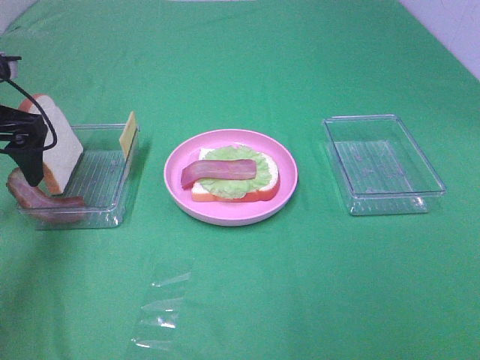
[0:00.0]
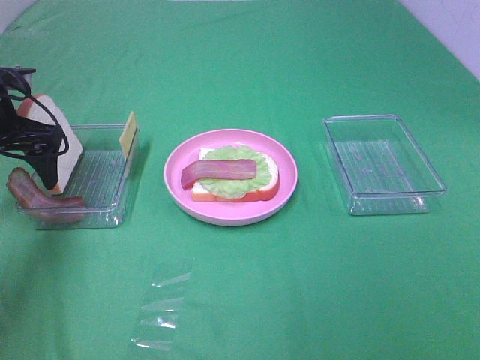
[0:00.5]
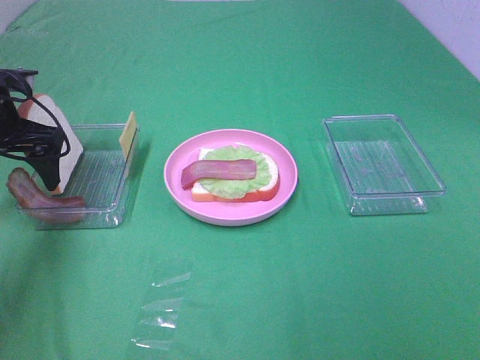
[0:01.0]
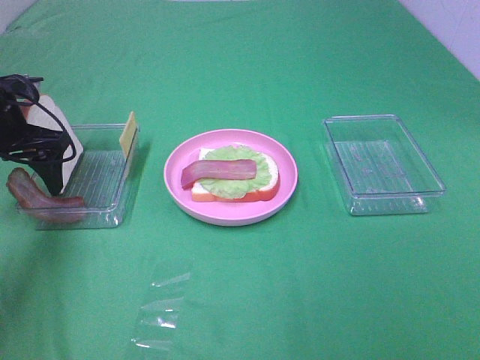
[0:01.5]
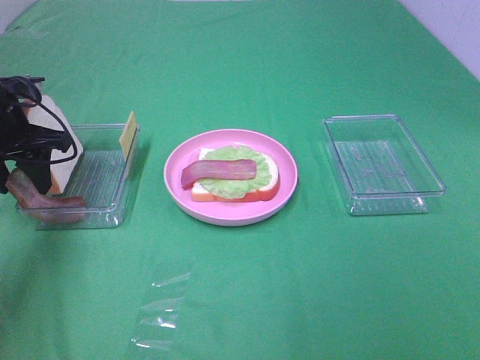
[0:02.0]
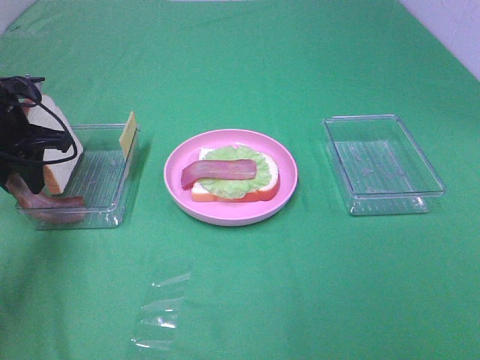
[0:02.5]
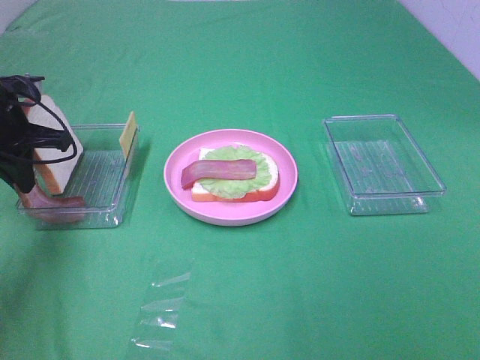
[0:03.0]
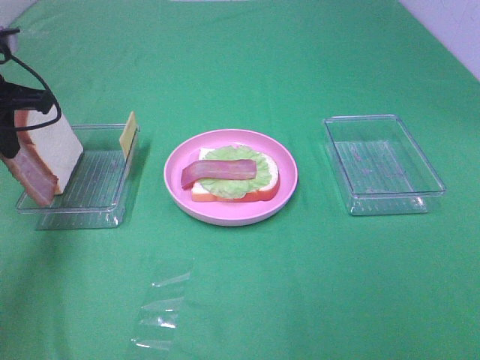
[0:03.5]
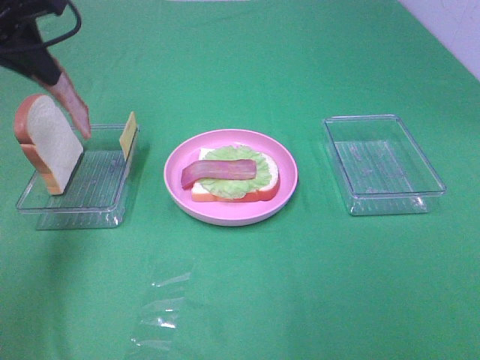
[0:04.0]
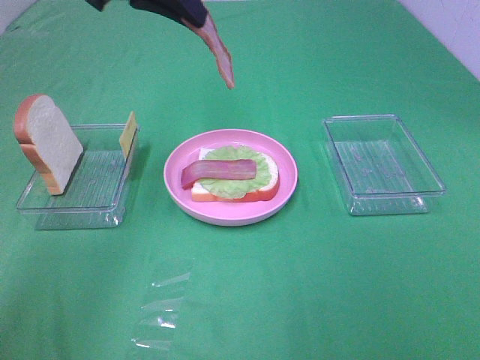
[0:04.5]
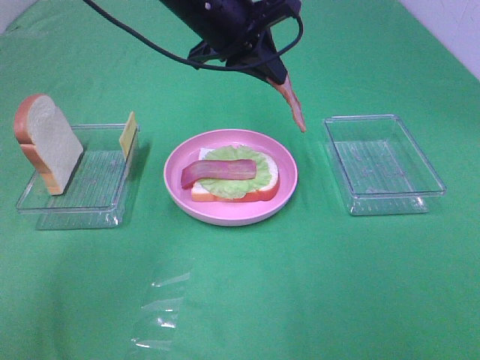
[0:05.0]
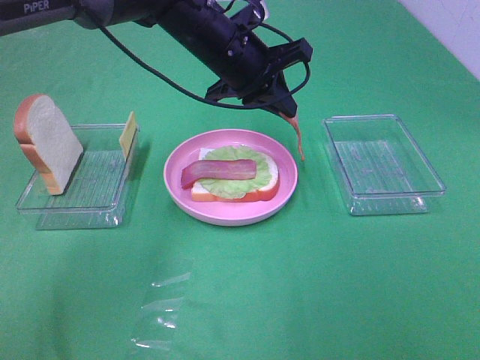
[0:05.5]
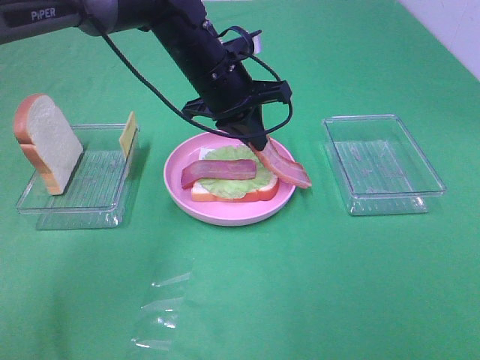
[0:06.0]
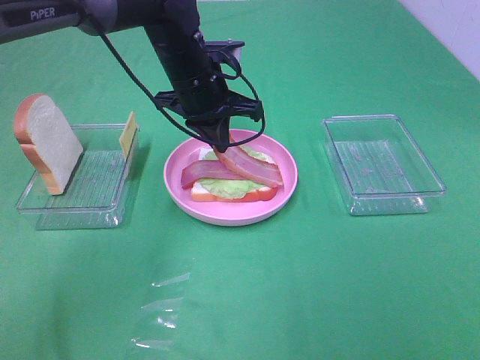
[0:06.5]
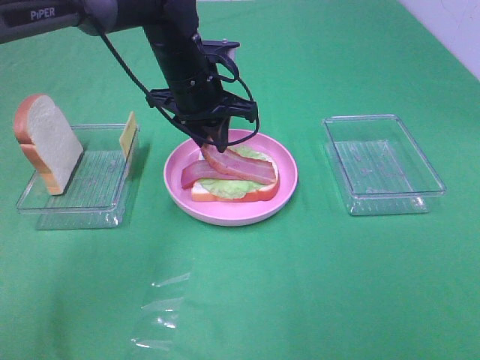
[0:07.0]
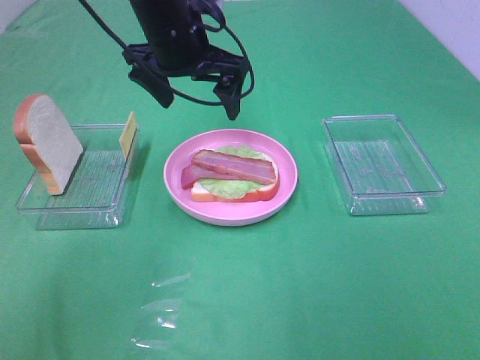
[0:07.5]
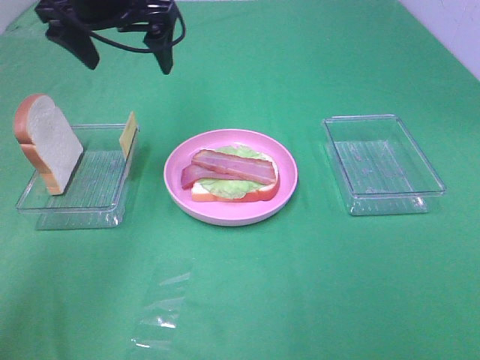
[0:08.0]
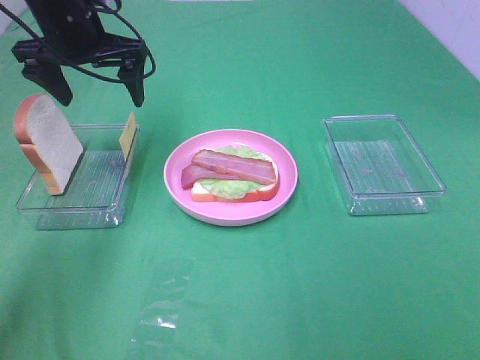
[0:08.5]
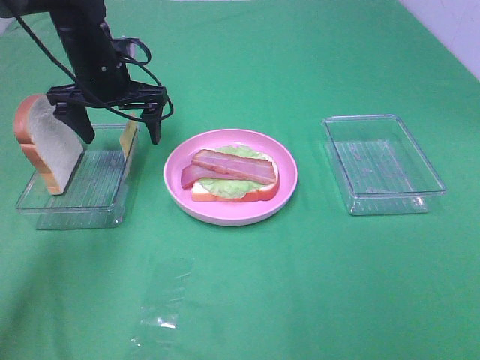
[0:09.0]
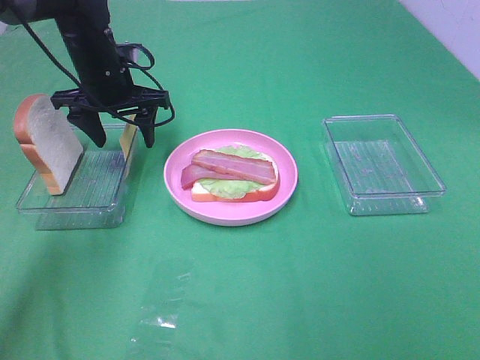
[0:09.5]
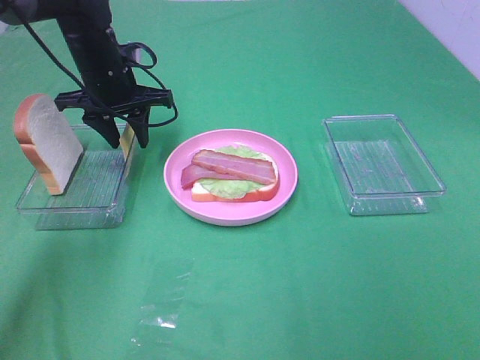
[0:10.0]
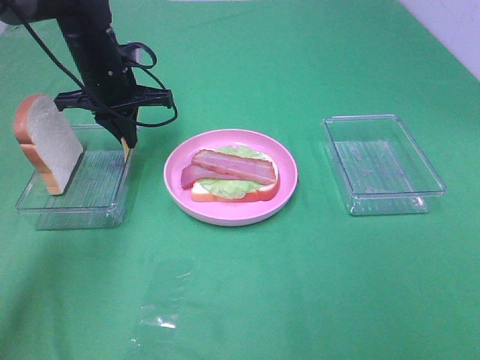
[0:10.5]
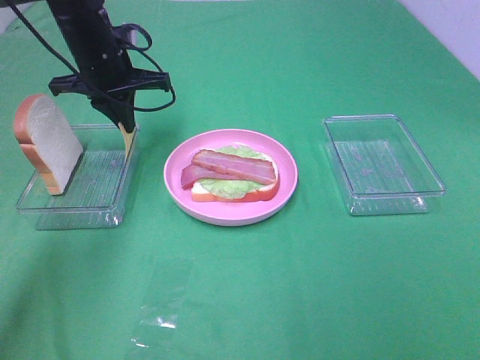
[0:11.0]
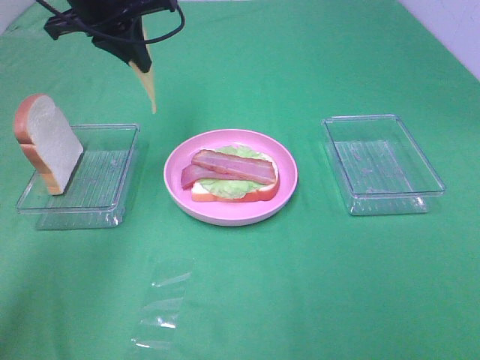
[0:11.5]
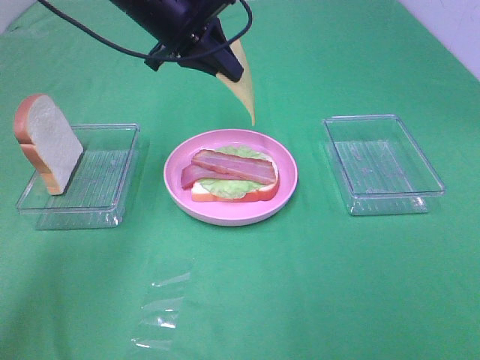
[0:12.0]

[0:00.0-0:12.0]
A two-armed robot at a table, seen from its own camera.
Task of the whole recording: Make sandwiches.
Step, 0:00.0 to 0:02.5: Left hand:grab the bacon.
Step, 0:03.0 to 0:07.0: Left hand:place bacon on bacon.
Step, 0:07.5 to 0:10.5: Left hand:grab the cheese slice.
0:00.0 to 0:02.0: The left gripper closes its fingers.
0:02.0 to 0:04.0: The left gripper shifts some 15 cm upward, and closes.
0:04.0 to 0:06.0: The left gripper moves to the right and downward, about 25 cm.
0:06.0 to 0:08.0: The left gripper moves to the left and upward, approximately 15 cm, and opens up.
0:08.0 to 0:10.0: The left gripper is displaced downward by some 10 cm, and closes up.
0:10.0 to 0:12.0: The left gripper shifts about 10 cm upward and to the right, and closes.

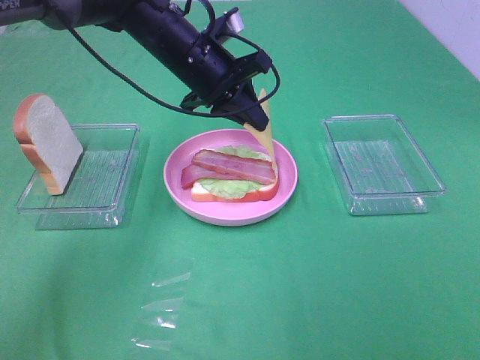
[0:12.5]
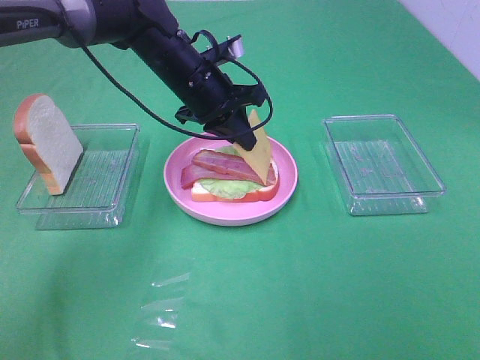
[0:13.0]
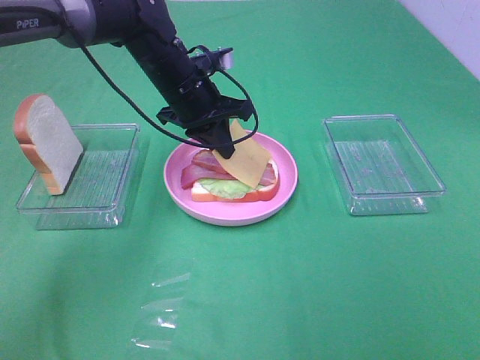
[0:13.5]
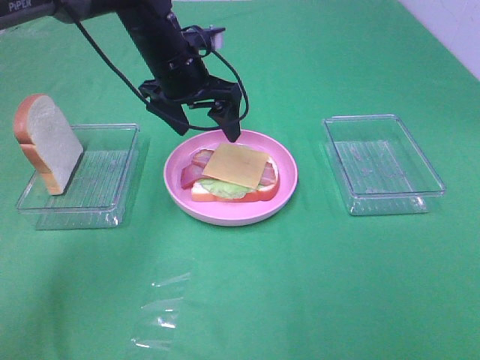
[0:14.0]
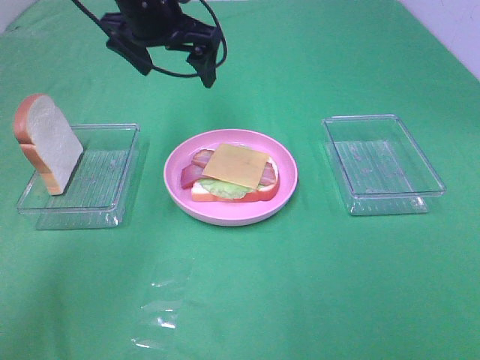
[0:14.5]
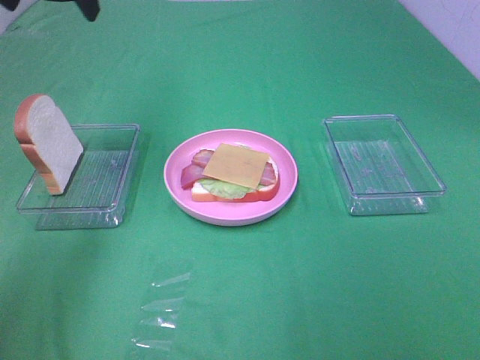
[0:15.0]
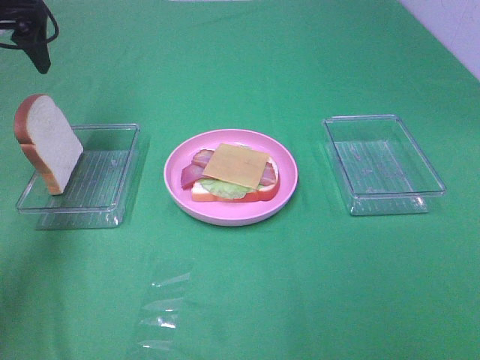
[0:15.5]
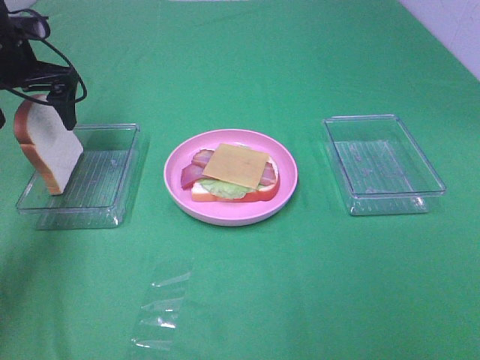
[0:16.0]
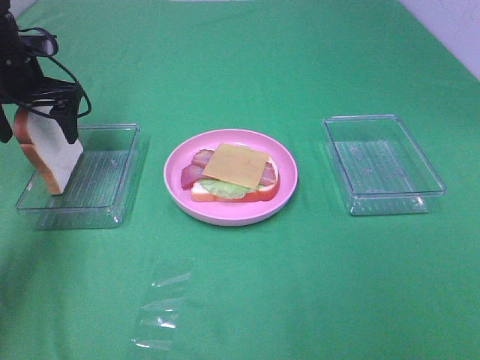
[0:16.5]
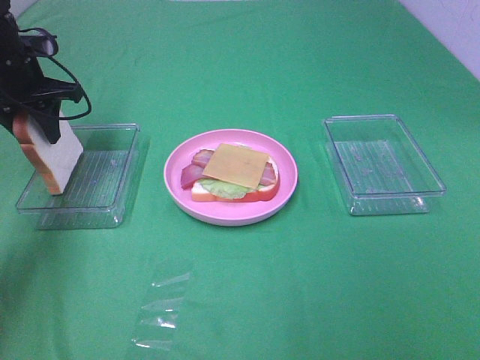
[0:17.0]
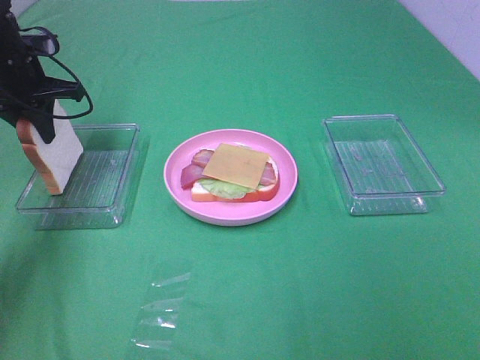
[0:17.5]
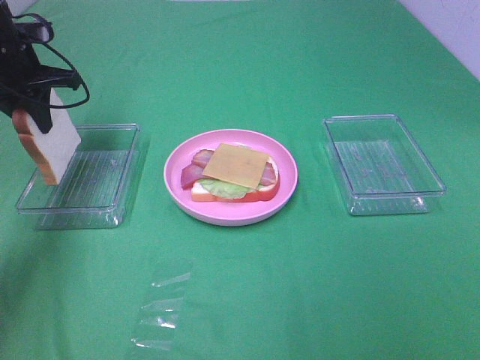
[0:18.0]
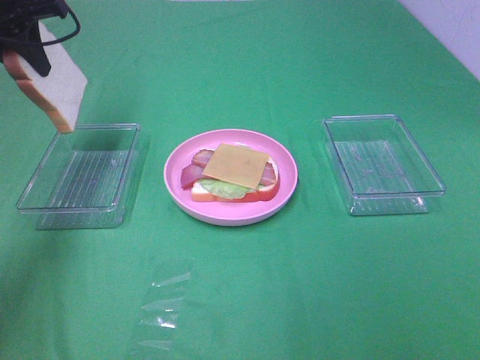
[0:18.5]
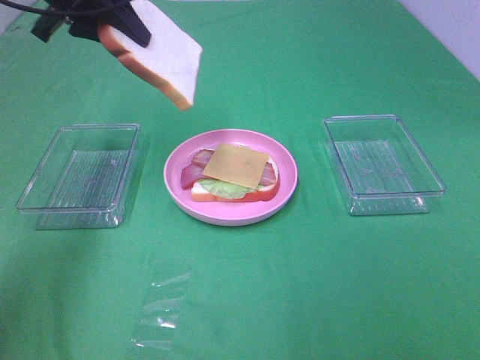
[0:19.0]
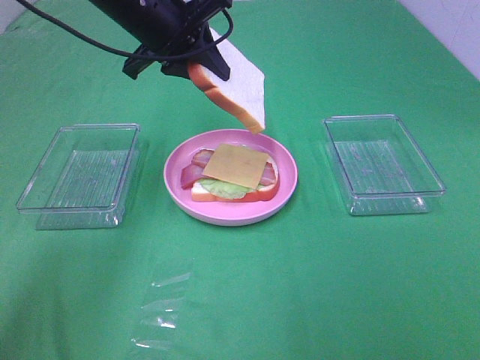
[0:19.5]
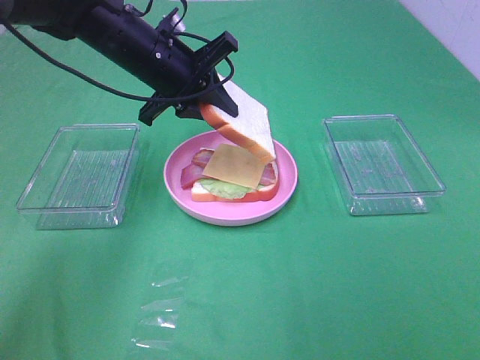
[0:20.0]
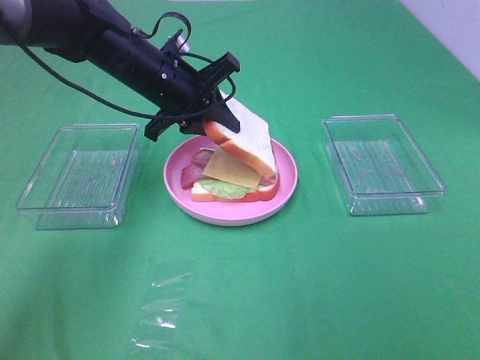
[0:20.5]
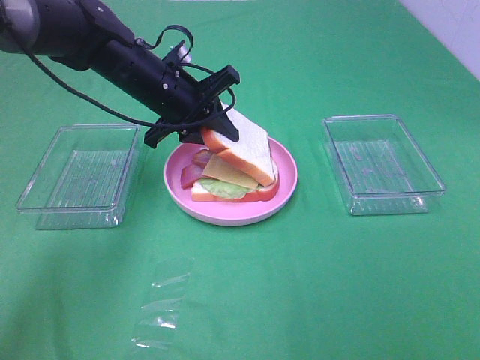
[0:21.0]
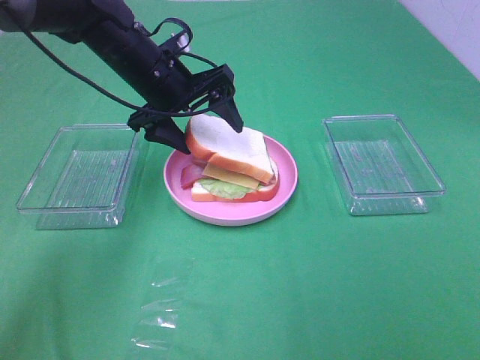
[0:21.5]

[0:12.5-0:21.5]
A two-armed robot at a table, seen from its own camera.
Task of the whole recording: Make sandwiches.
Step, 0:14.0 to 0:17.5: Left hand:grab the bread slice.
0:12.5 to 0:14.5: The left gripper heads upward and to the left, covering about 10 cm, and opens.
0:14.5 to 0:17.0: The left gripper goes roughly 20 cm to the left and downward, and closes up.
0:17.0 to 0:19.5: The left gripper shifts approximately 20 cm to the right.
0:19.5 to 0:21.5: The left gripper is displaced downward by roughly 10 cm, and opens up.

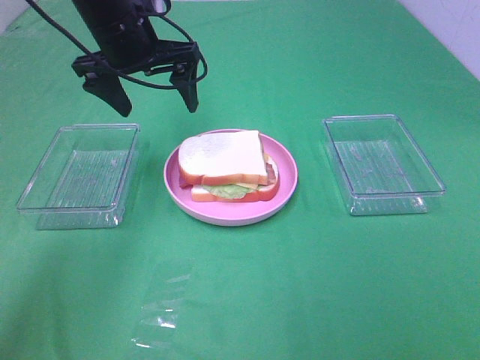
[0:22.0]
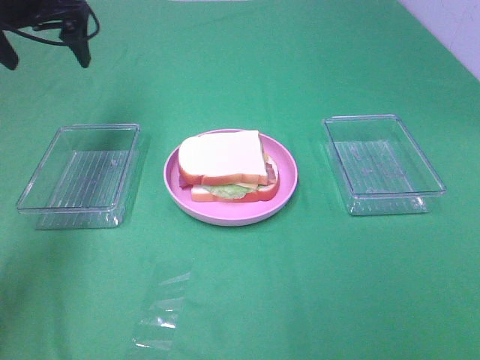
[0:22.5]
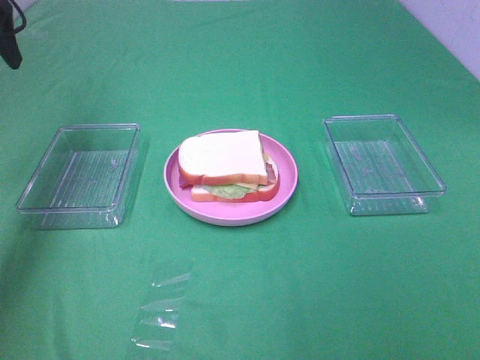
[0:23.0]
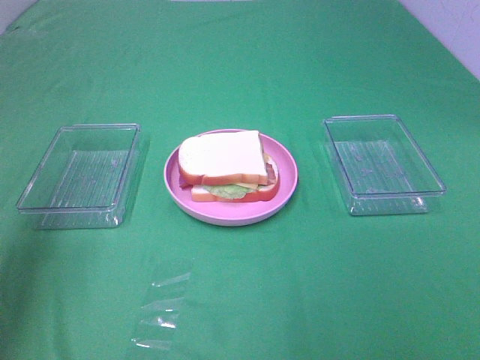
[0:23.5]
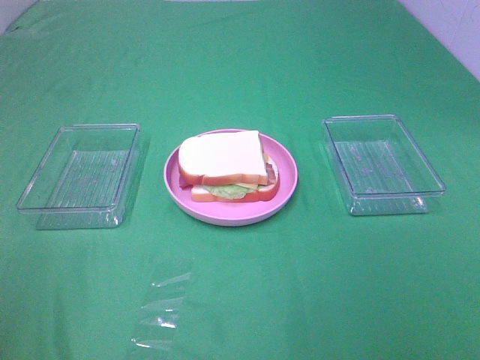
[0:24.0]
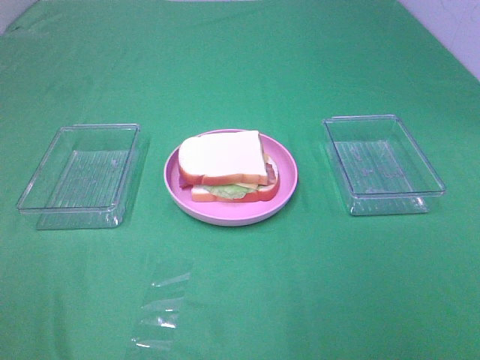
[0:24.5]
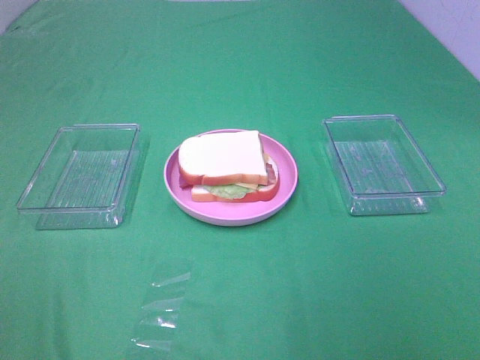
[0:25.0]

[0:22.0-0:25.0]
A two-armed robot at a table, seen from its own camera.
Task of the whole recording: Make sandwiches.
0:22.0 to 0:23.5: The left gripper goes some 30 cm backward, to the left and upward.
0:23.5 to 0:25.0: The left gripper goes approximately 25 cm backward.

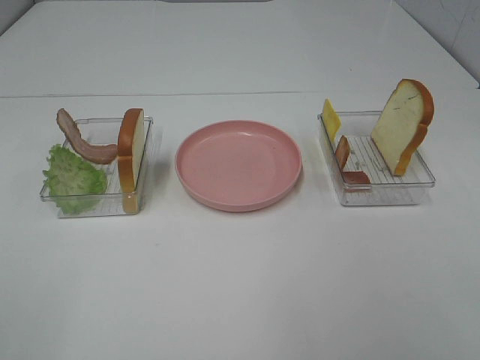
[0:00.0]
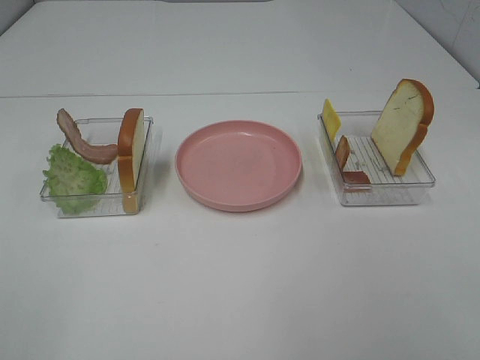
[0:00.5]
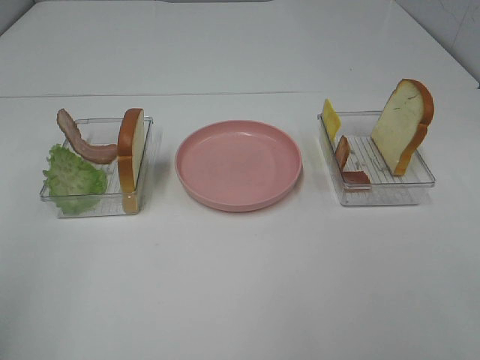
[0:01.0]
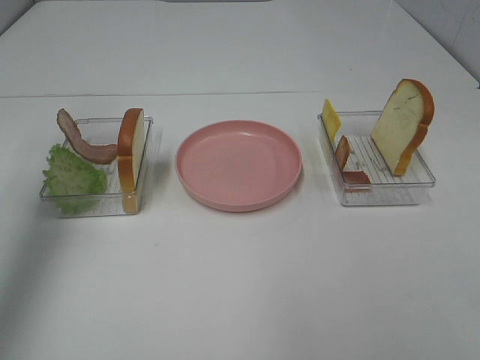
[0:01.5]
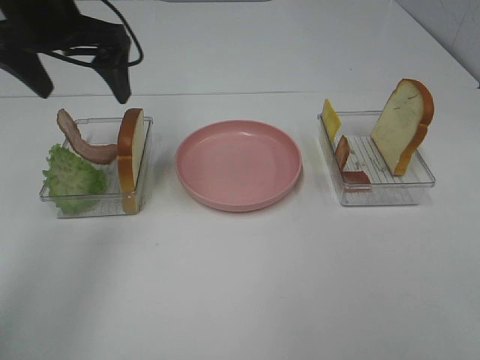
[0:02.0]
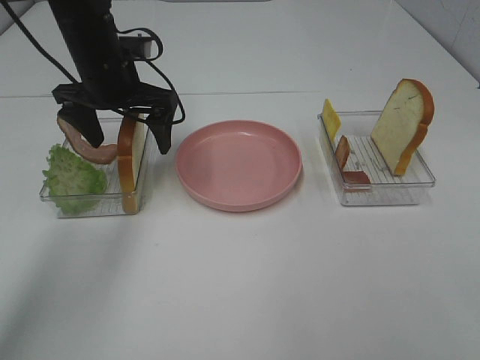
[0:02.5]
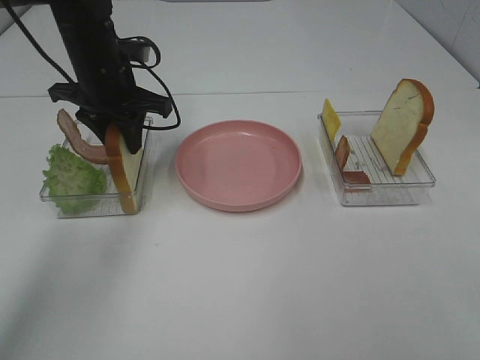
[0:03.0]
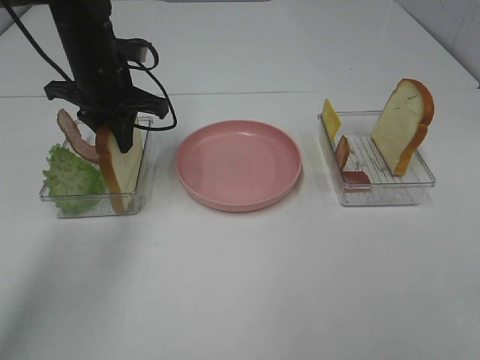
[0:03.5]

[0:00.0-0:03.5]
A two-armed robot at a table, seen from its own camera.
Task of the whole recording: Make sandwiches.
Step, 0:00.0 to 0:03.0: Left hand:grab the bread slice.
0:00.0 to 0:02.0: The left gripper shifts some 40 cm forward.
0:02.0 to 0:03.5: The left gripper is displaced downward by about 10 cm, and closes its fingers.
